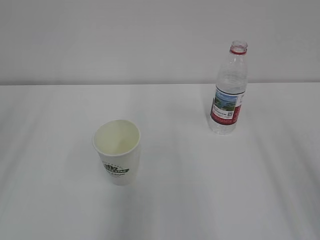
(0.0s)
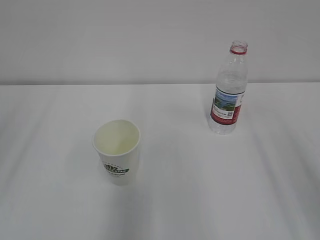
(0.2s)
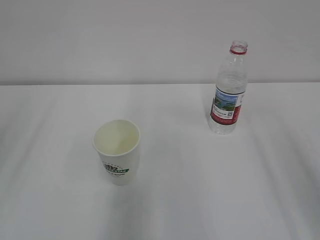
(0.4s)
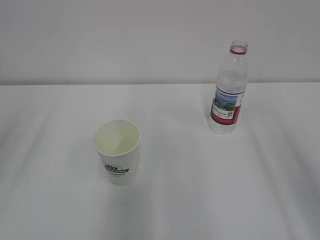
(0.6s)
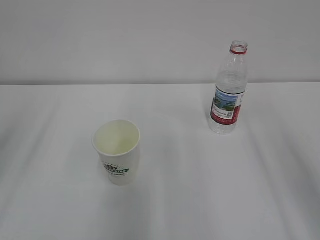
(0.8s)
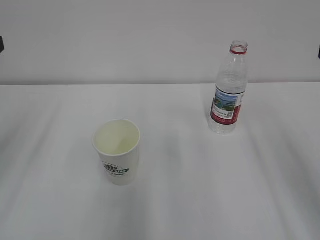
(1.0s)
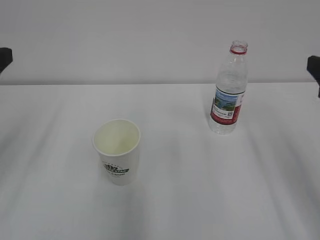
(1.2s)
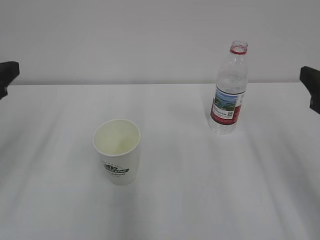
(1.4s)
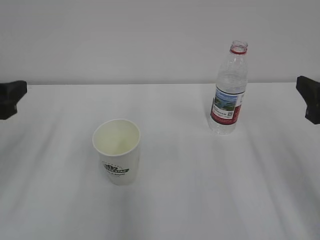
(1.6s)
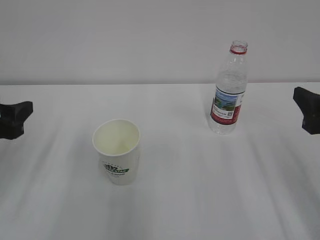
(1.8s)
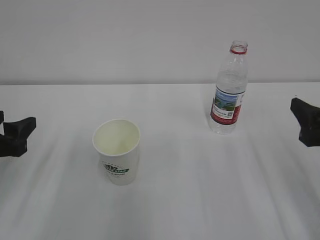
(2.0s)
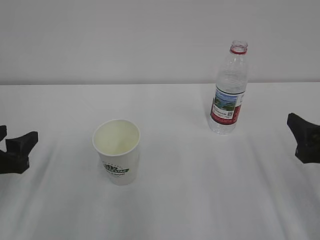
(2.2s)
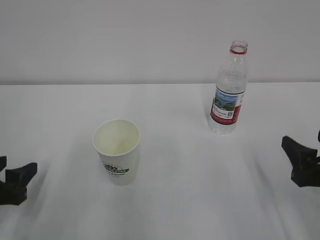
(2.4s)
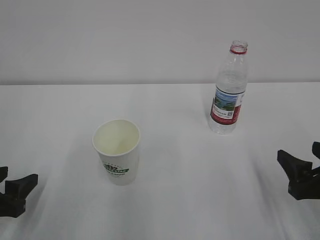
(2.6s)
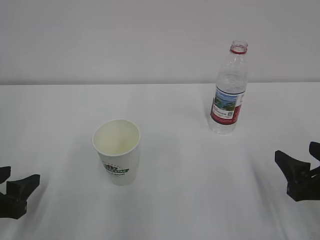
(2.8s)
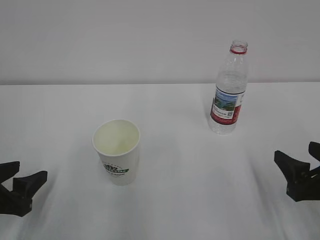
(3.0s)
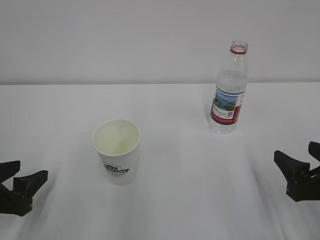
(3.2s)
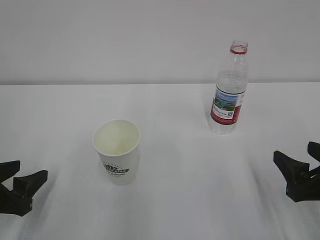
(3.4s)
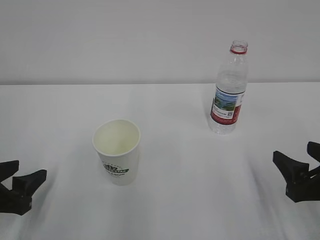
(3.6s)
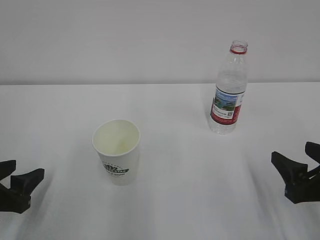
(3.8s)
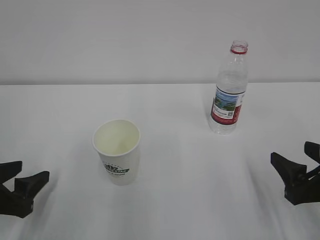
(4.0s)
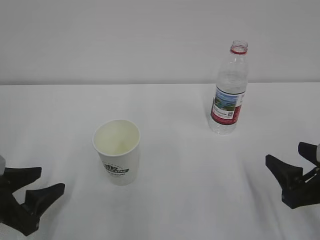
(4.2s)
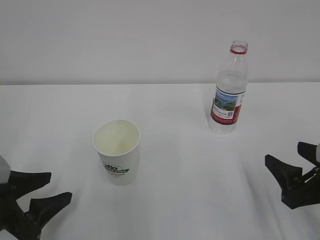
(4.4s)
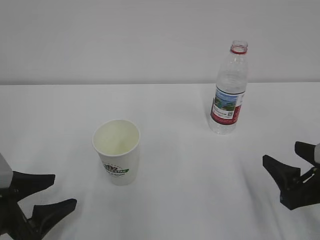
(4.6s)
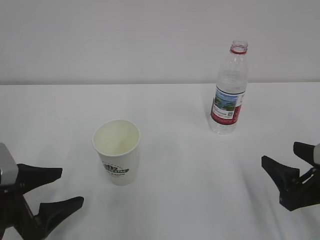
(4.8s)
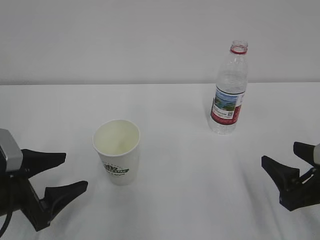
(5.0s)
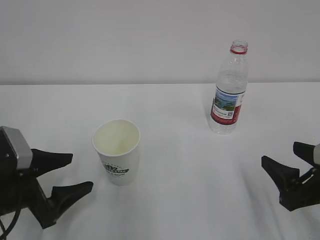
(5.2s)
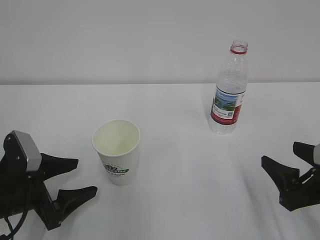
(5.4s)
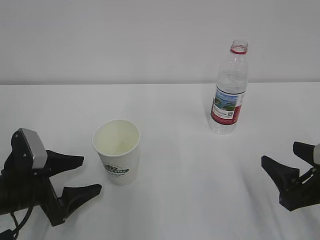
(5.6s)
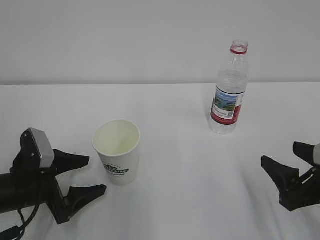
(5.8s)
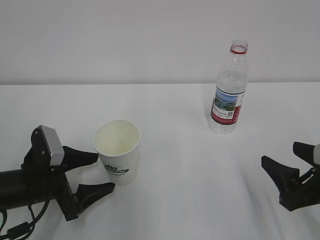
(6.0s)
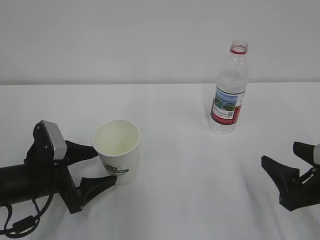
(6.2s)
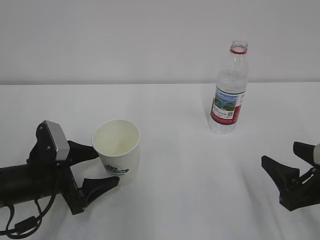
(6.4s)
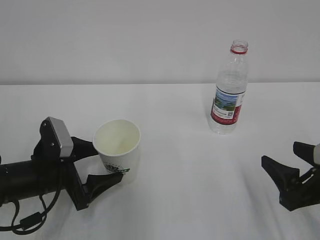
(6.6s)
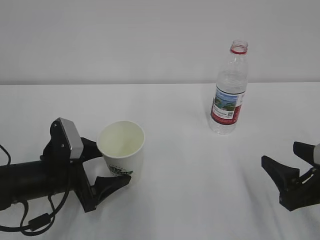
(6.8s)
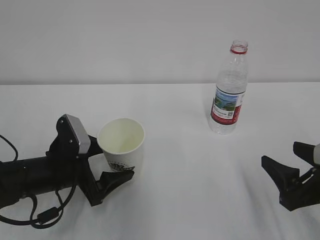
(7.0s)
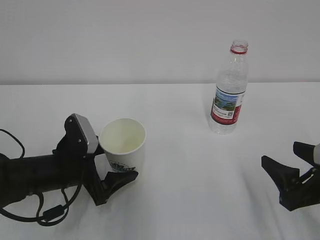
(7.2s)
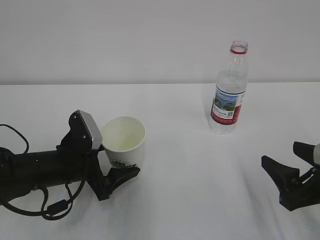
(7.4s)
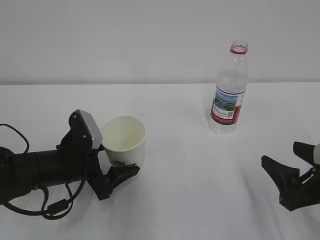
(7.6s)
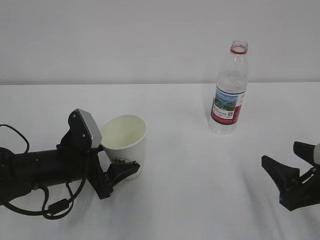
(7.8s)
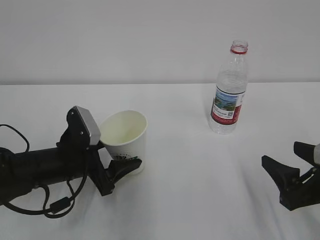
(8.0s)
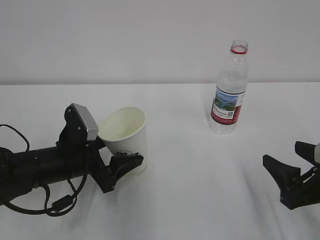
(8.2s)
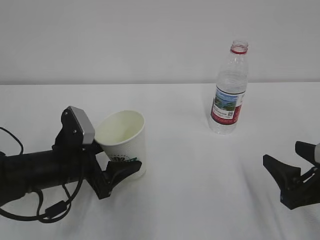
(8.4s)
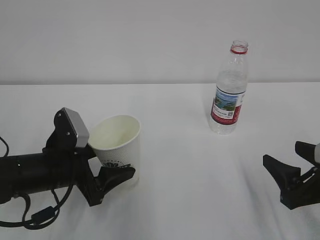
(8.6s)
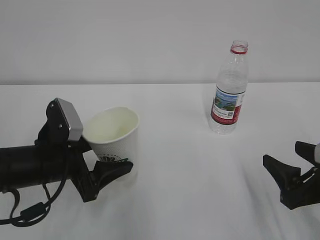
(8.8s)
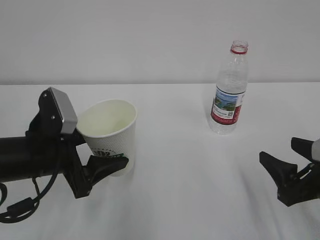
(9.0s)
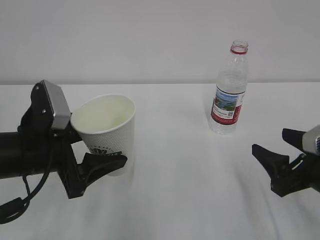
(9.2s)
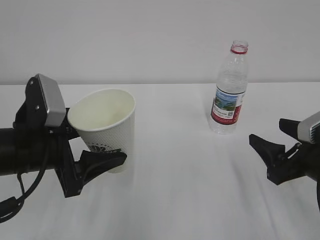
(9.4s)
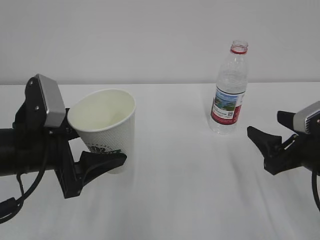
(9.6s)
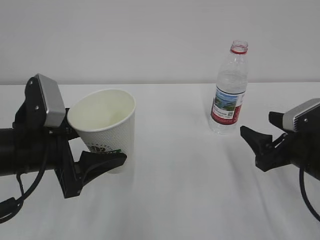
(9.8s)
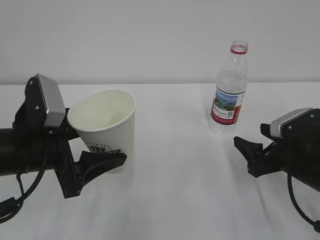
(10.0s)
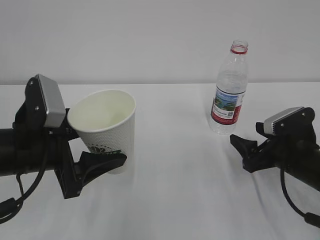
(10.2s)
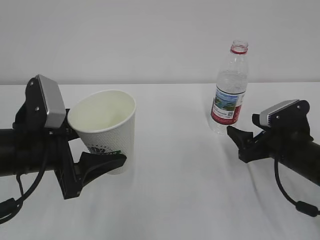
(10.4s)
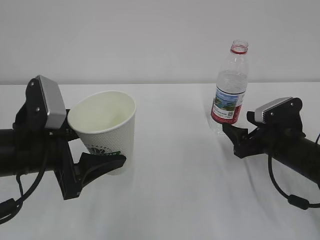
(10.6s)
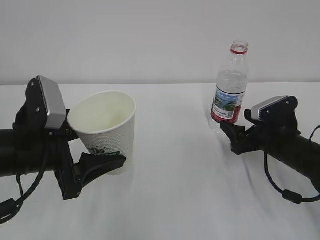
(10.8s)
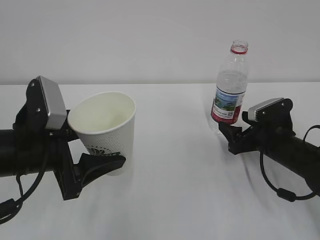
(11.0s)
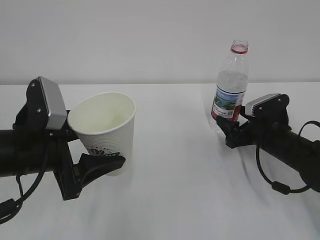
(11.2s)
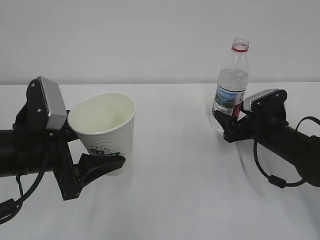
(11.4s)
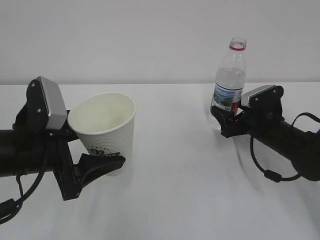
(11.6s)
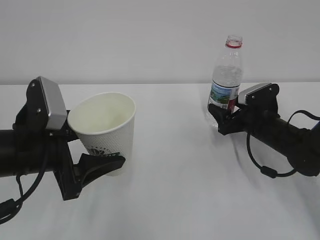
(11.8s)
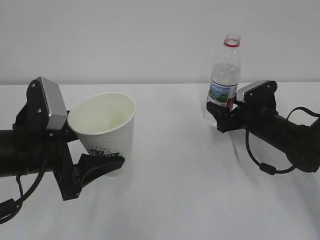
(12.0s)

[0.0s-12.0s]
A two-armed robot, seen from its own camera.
0.0s to 1.6s: The two grippers go approximately 15 cm downward and forward.
1.6s to 3.0s: The right gripper is displaced downward by roughly 10 cm; the left gripper is displaced downward and backward by some 15 cm.
3.0s to 4.4s: The grippers move only a little.
4.4s to 6.0s: The left gripper moves forward, some 5 cm, and opens its fingers.
6.0s to 7.6s: The left gripper changes place by approximately 5 cm.
7.6s to 9.0s: The left gripper goes some 5 cm upward, and closes up.
9.0s to 10.4s: The right gripper moves forward, approximately 10 cm.
10.4s to 12.0s: The right gripper shifts about 10 cm forward.

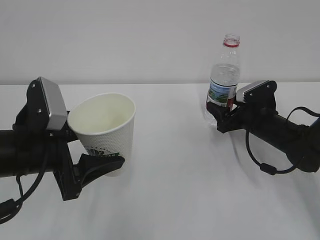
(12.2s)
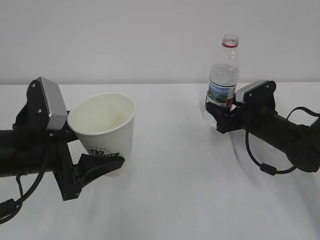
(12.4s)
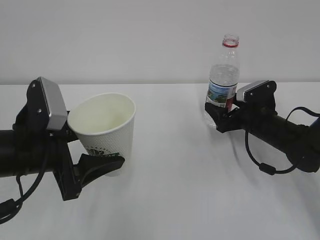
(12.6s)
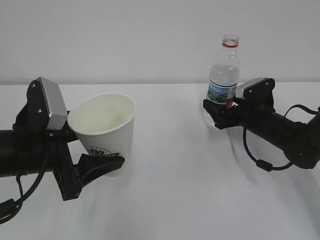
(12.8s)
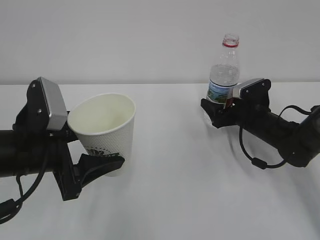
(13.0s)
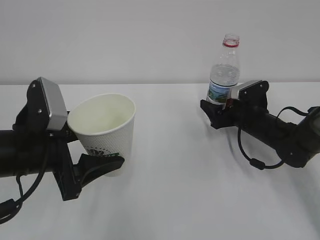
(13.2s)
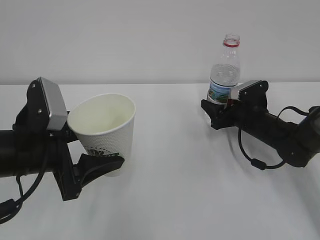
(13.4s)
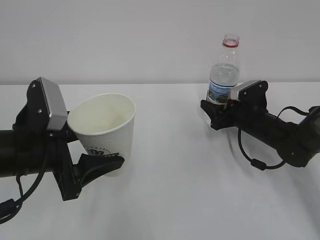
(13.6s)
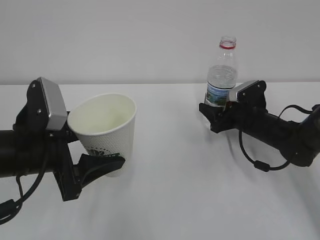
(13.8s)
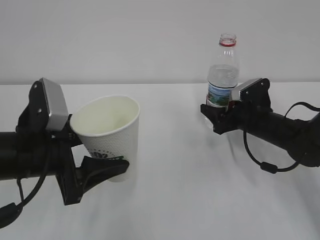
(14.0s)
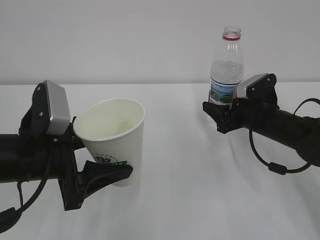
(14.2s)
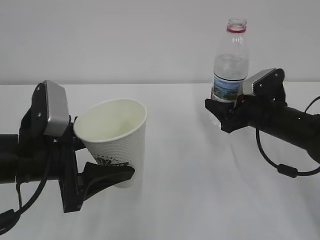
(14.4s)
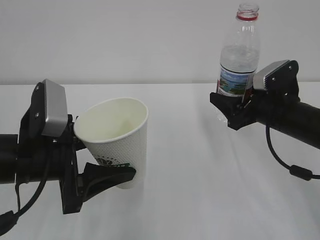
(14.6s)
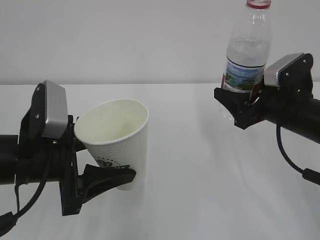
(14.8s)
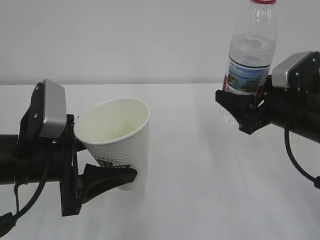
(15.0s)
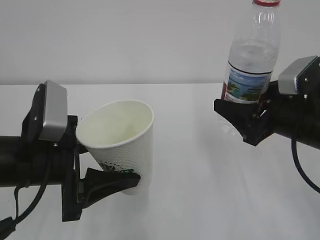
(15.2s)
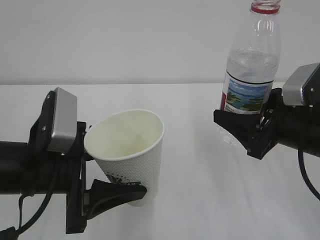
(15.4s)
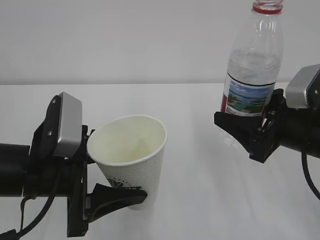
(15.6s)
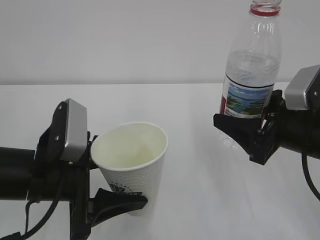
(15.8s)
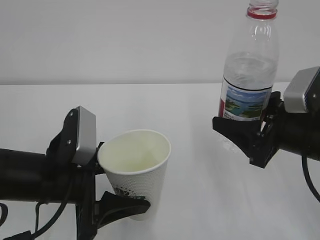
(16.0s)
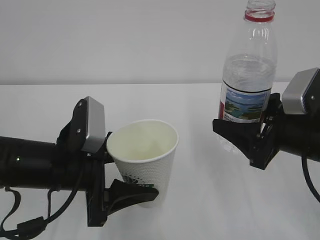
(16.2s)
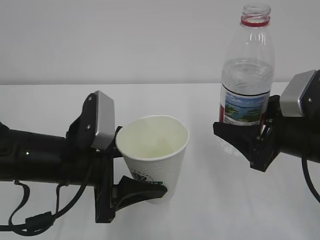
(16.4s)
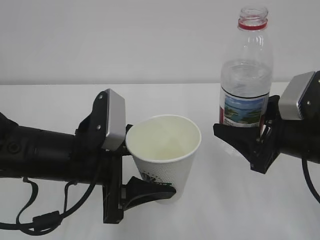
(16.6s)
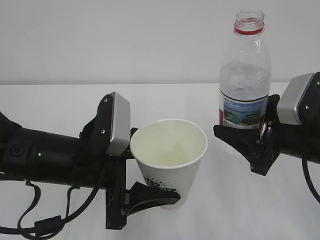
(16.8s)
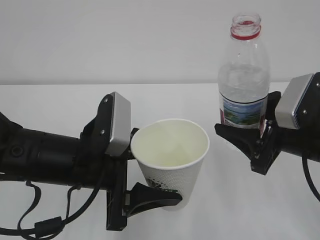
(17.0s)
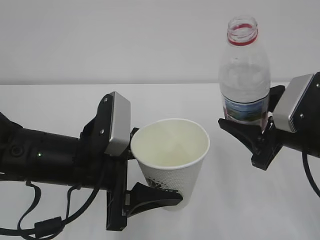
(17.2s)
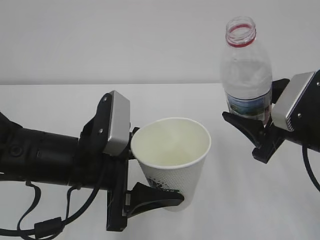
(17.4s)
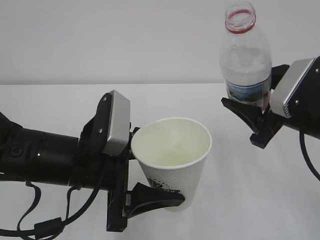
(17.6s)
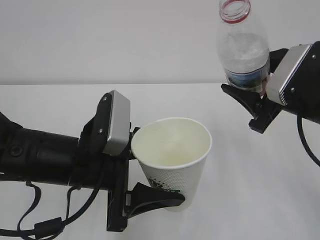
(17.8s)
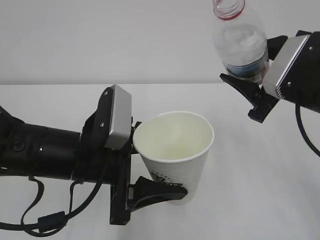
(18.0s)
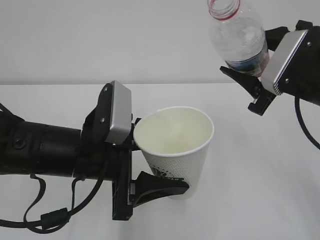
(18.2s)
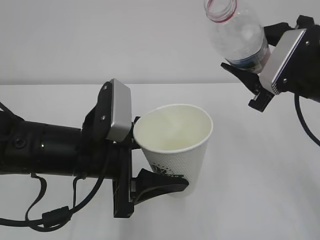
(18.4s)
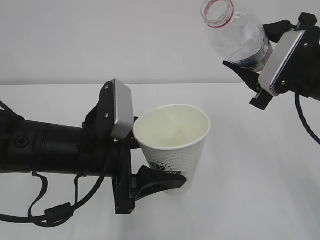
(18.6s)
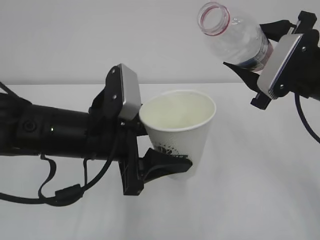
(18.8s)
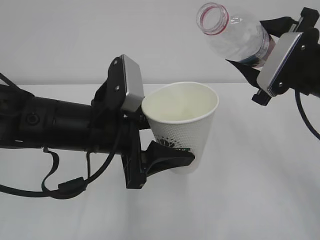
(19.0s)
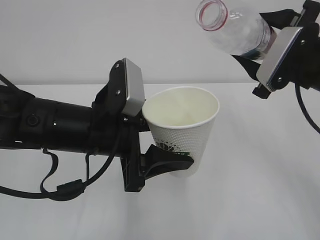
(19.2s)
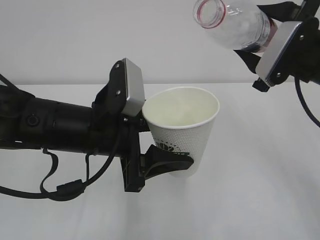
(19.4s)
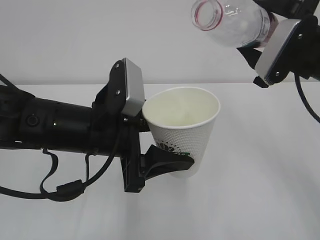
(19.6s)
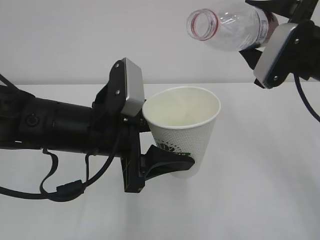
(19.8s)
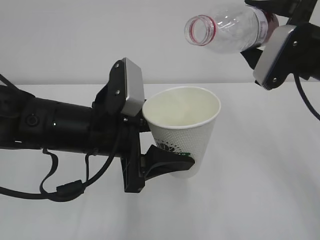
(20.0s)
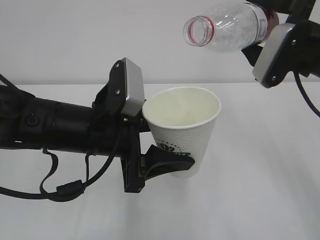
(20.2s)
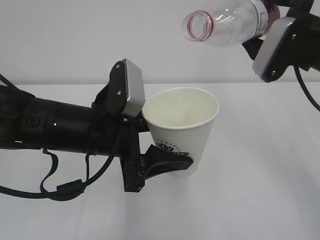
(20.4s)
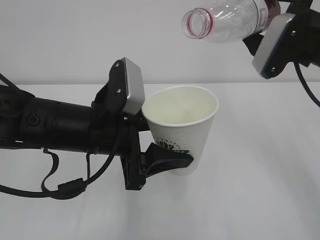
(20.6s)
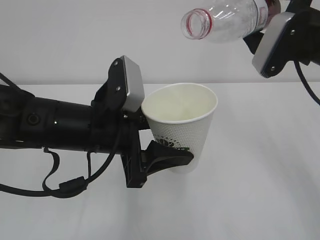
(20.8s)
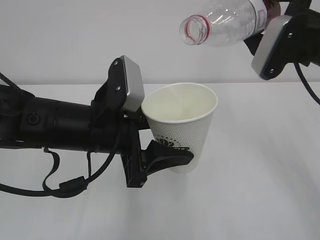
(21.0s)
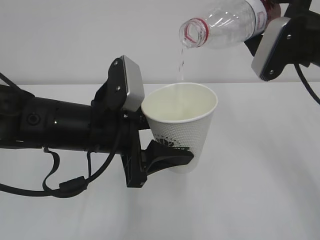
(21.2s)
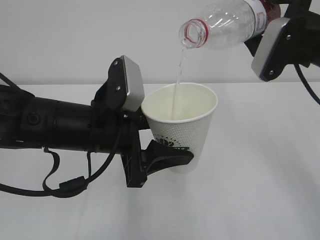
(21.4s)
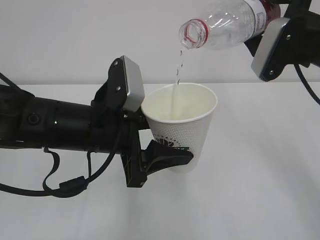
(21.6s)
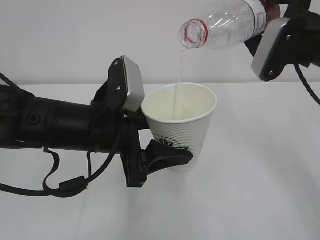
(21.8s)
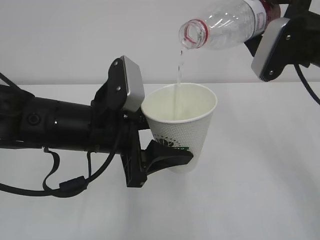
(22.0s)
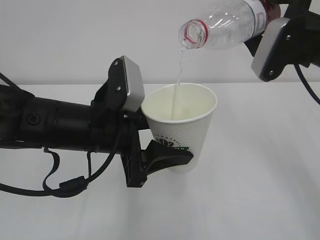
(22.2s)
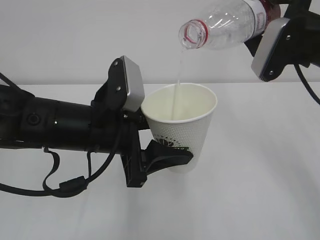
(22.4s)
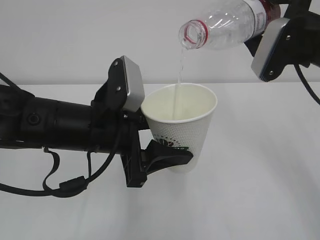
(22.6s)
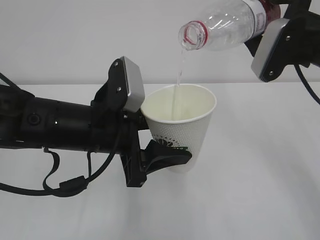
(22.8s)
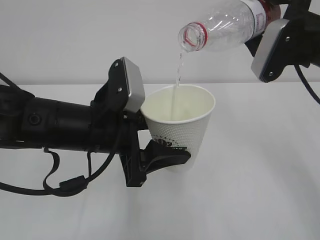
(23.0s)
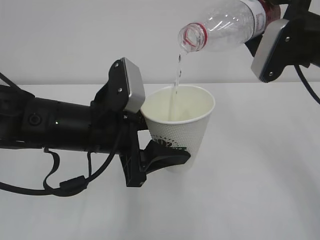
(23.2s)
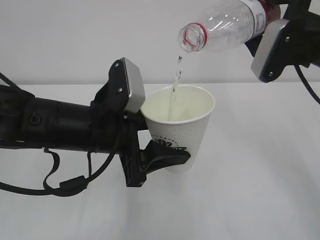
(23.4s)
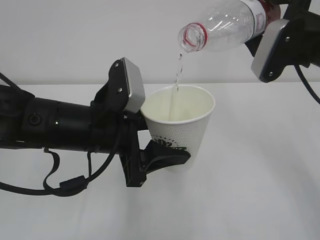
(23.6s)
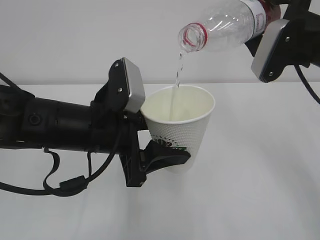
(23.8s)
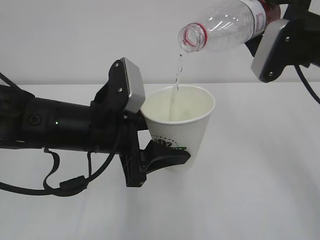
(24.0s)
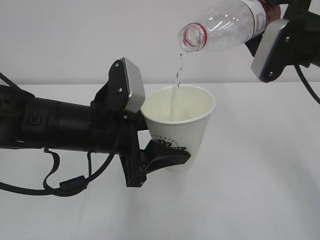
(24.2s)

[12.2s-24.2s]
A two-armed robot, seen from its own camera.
12.2s to 13.8s: The grippers make only small movements.
13.8s to 15.2s: The right gripper moves backward and upward, approximately 20 cm.
15.2s to 16.6s: The left gripper is displaced to the right by approximately 5 cm.
16.6s to 18.2s: The right gripper moves upward and forward, roughly 10 cm.
19.8s to 21.2s: There are only small adjustments of the grippers.
21.2s to 24.2s: Both grippers stay put.
